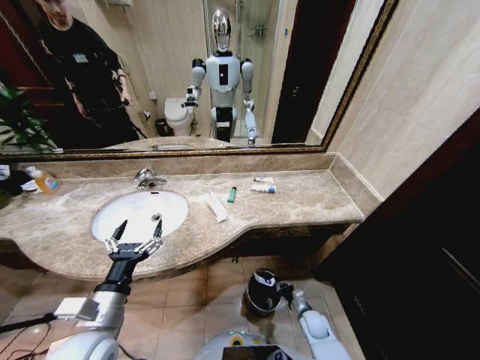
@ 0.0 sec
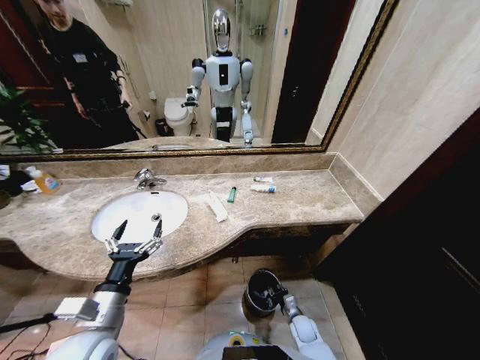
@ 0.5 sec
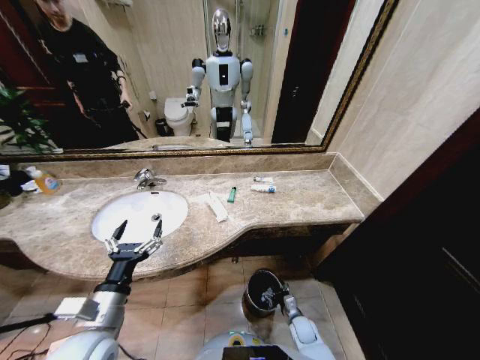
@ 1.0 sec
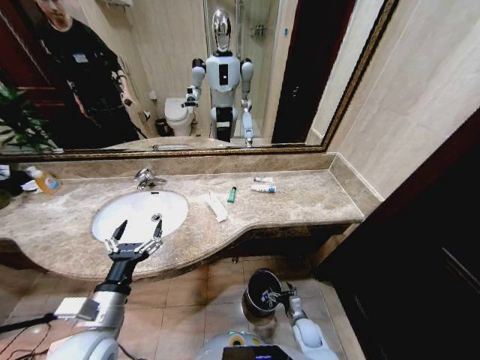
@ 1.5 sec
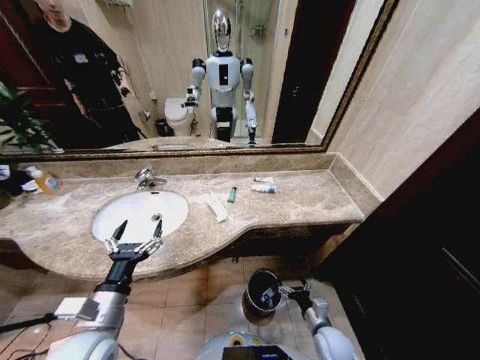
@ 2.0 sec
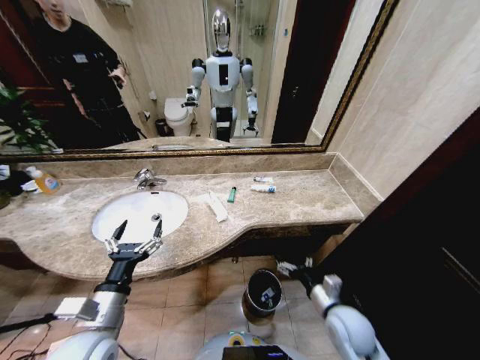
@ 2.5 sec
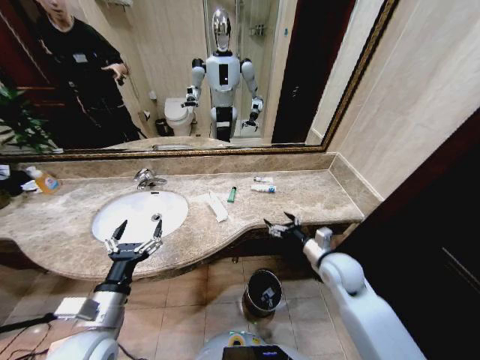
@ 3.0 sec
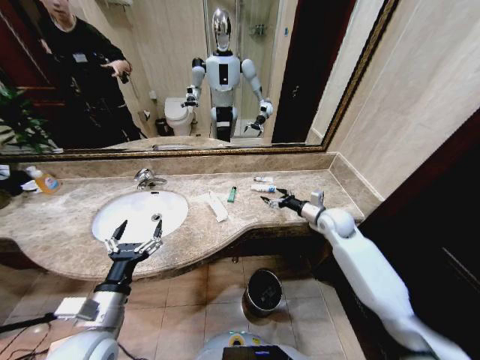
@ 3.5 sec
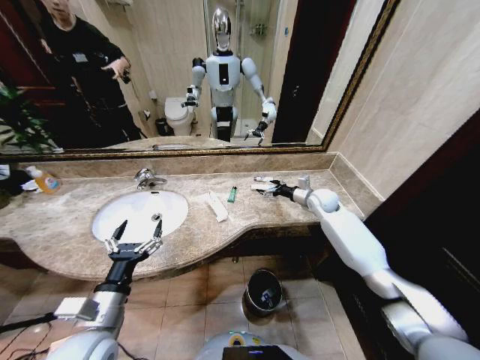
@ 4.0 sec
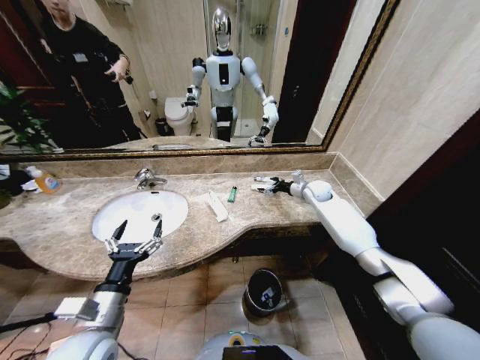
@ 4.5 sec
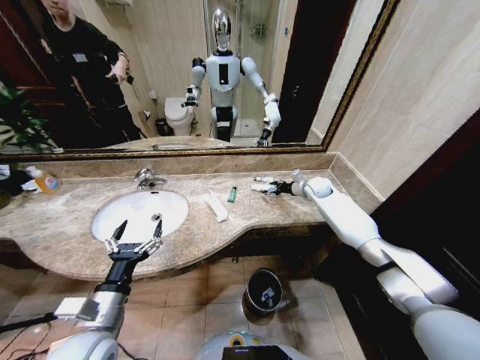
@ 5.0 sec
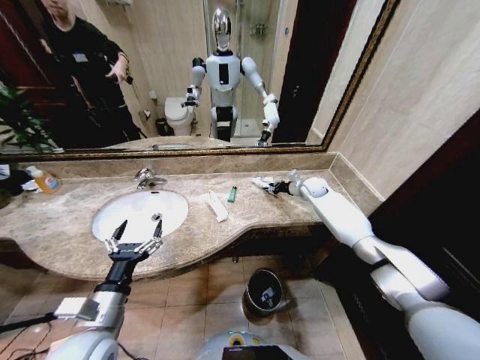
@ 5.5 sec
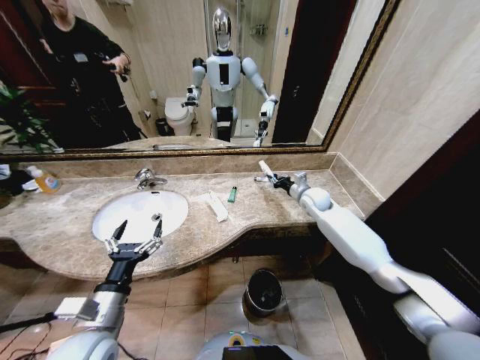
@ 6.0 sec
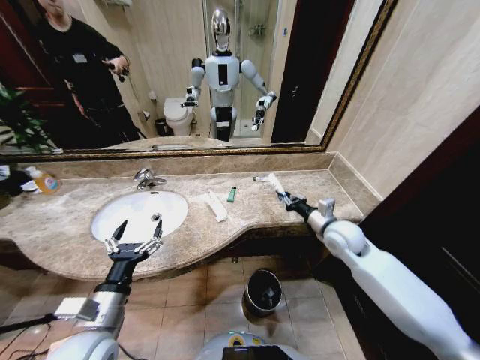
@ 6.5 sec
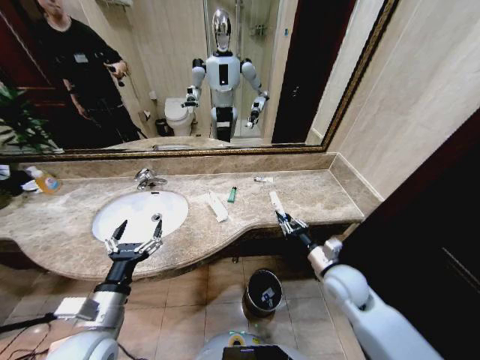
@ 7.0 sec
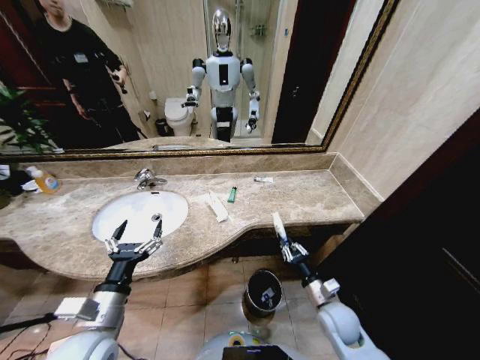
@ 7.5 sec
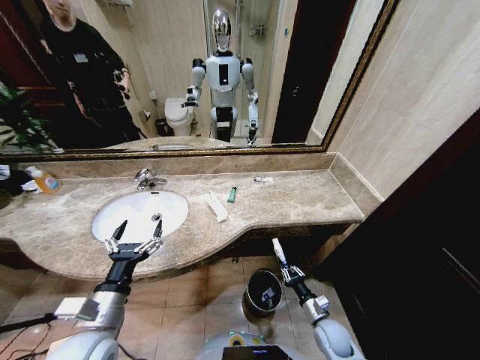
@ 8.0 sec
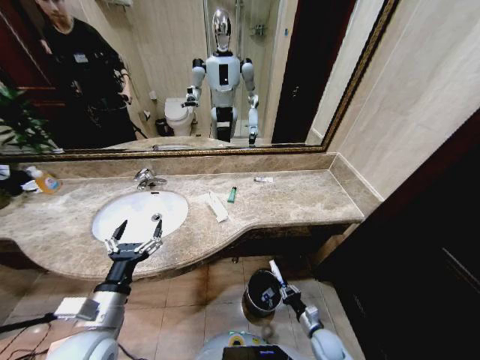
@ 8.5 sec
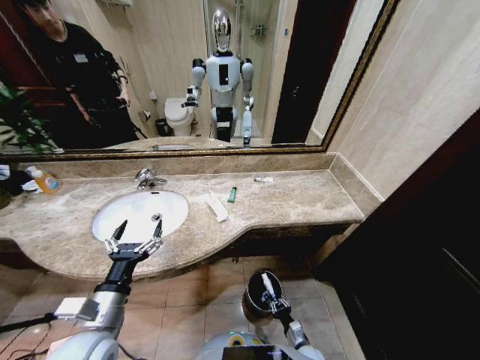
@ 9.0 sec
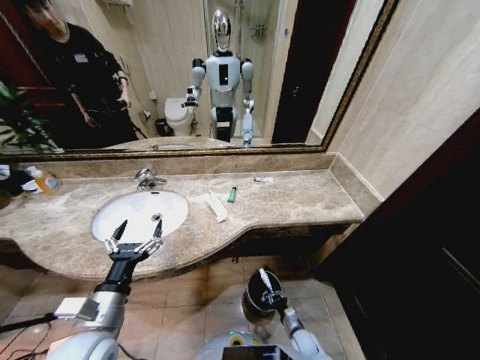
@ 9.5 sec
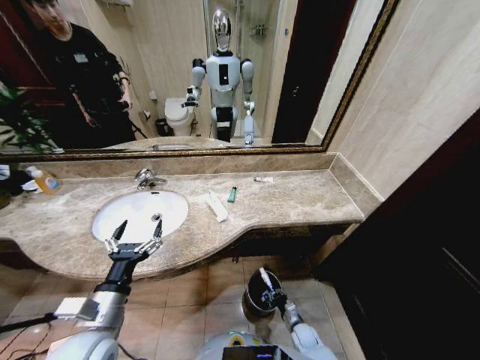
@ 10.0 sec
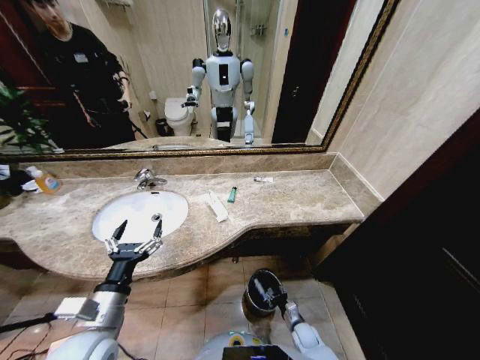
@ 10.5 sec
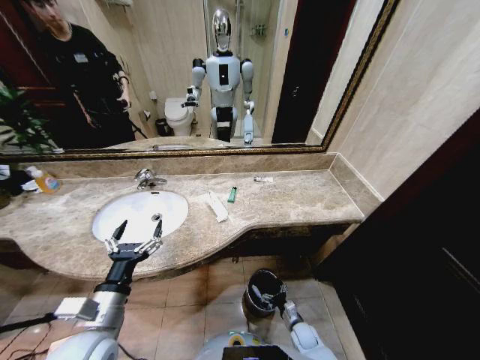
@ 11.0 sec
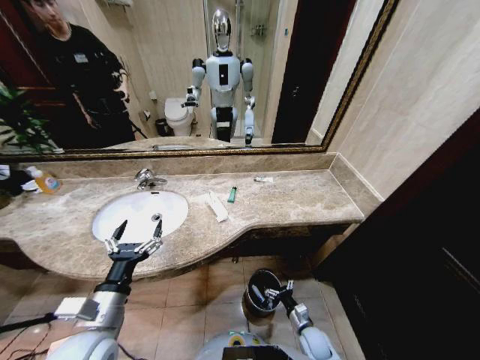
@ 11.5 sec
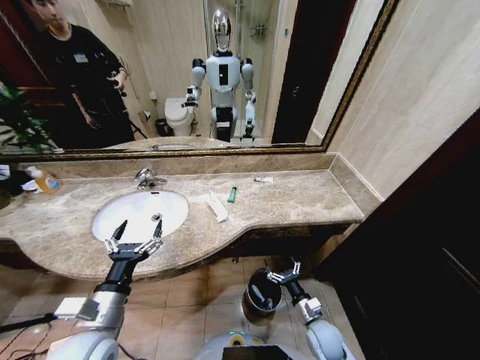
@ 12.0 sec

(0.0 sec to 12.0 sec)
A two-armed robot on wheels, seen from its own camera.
Task of the whole recording: Pick up the trash from the sink and place it in the trash bin.
0.0 sec - 2.0 sec: The right gripper is displaced upward and backward by approximately 10 cm, and opens up.
2.0 sec - 4.0 sec: The right gripper goes some 40 cm forward and upward.
4.0 sec - 6.0 sec: The right gripper closes its fingers.
6.0 sec - 8.0 sec: The right gripper shifts approximately 40 cm backward and downward.
8.0 sec - 10.0 sec: The right gripper goes some 15 cm downward.
10.0 sec - 12.0 sec: The right gripper heads upward, covering about 15 cm, and opens.

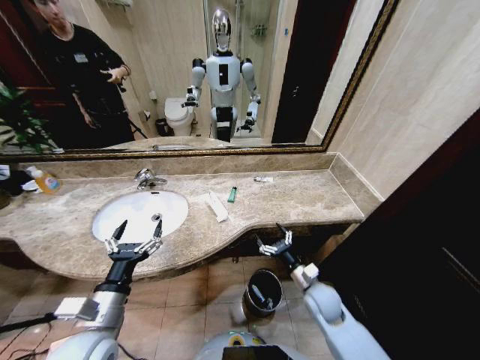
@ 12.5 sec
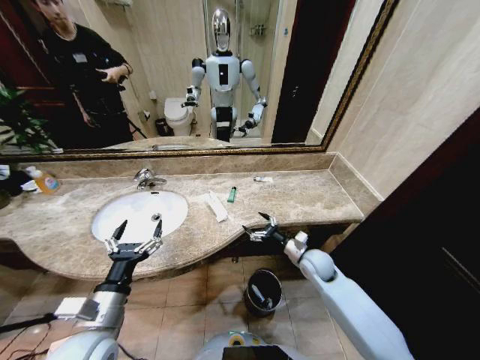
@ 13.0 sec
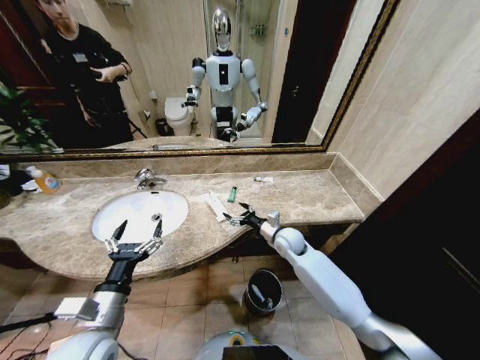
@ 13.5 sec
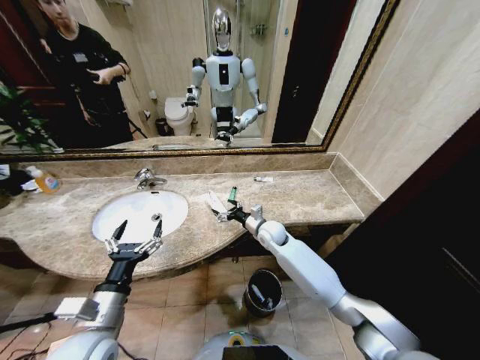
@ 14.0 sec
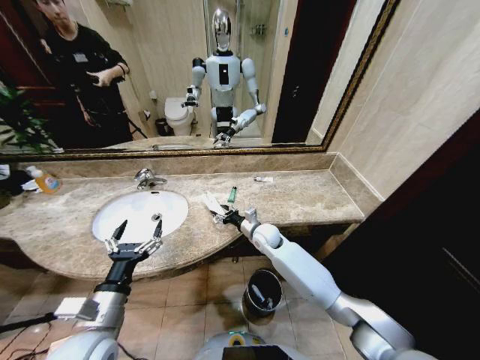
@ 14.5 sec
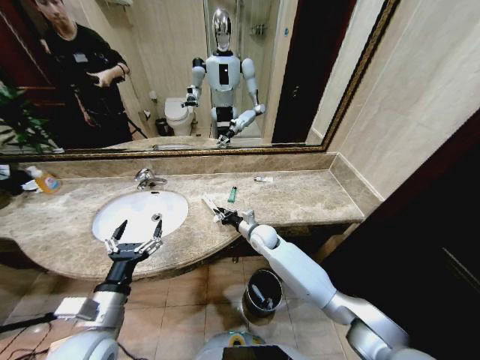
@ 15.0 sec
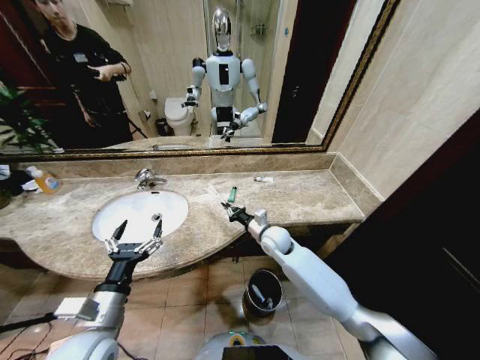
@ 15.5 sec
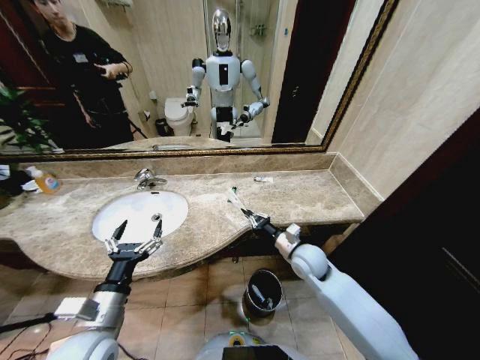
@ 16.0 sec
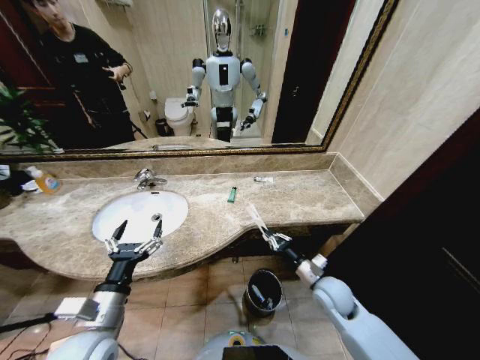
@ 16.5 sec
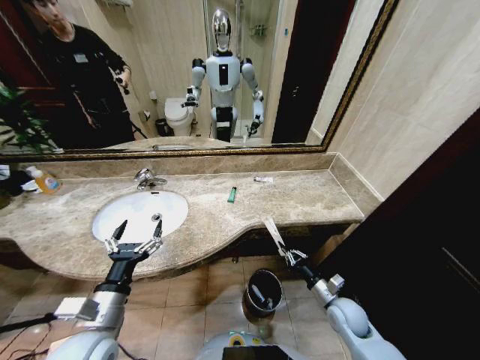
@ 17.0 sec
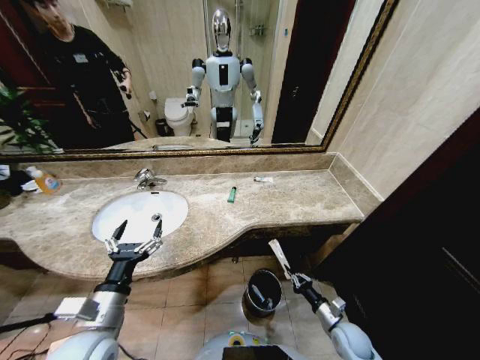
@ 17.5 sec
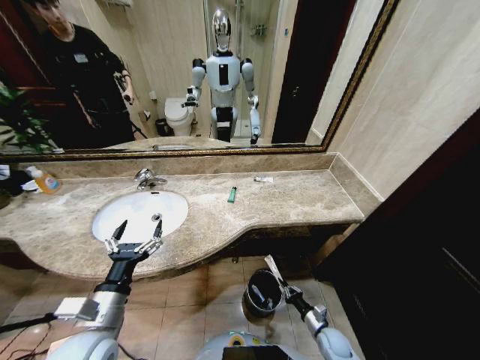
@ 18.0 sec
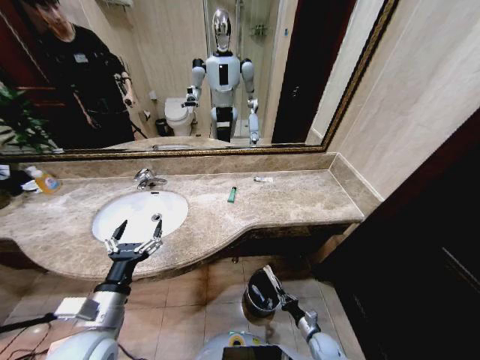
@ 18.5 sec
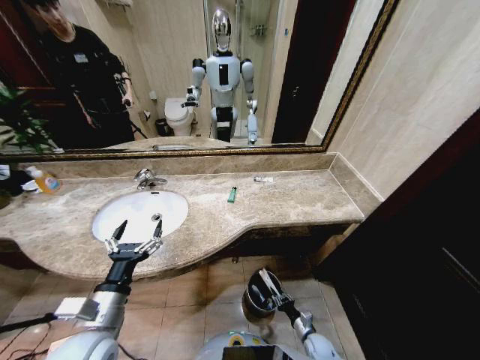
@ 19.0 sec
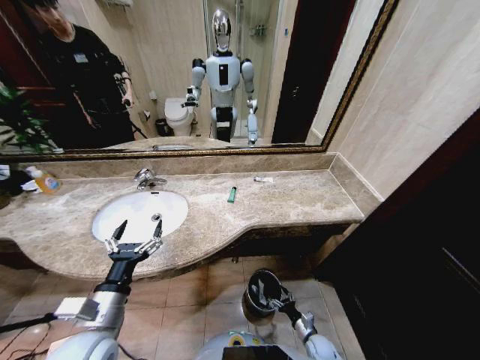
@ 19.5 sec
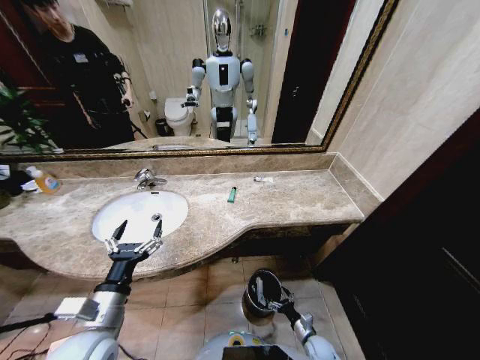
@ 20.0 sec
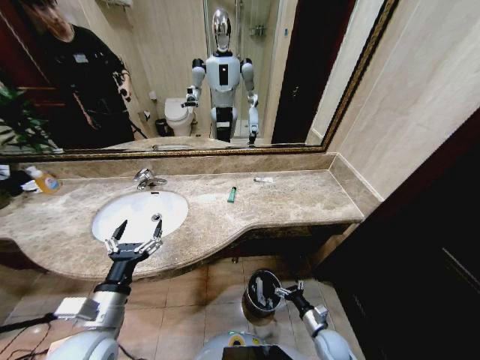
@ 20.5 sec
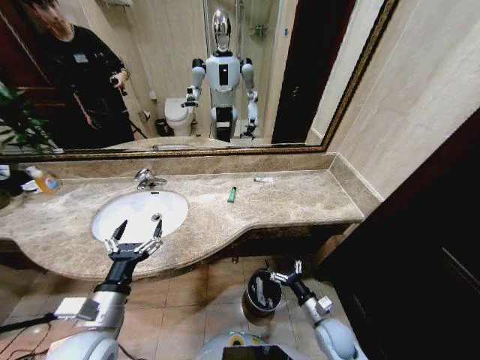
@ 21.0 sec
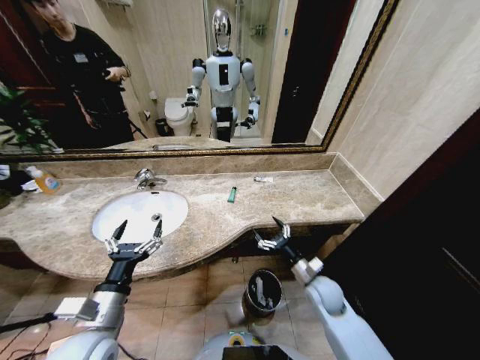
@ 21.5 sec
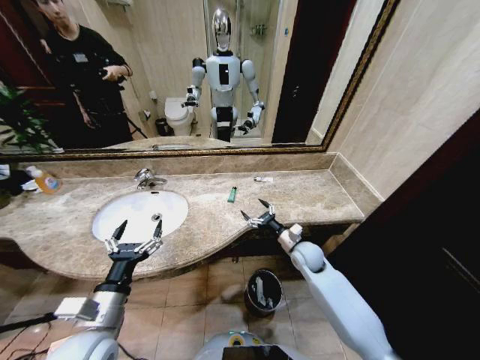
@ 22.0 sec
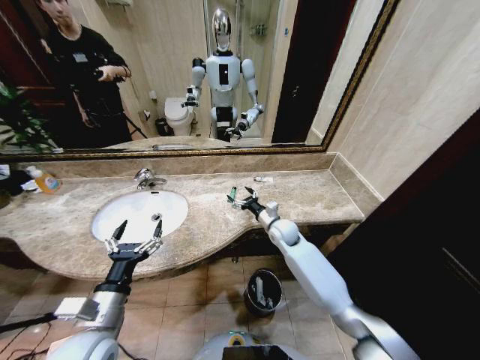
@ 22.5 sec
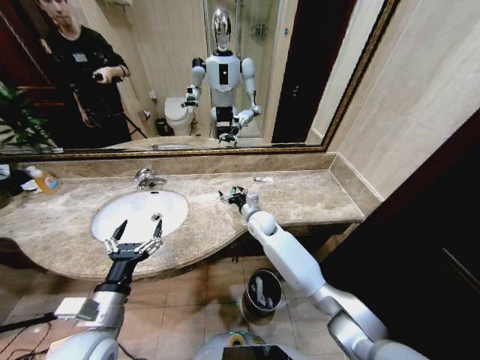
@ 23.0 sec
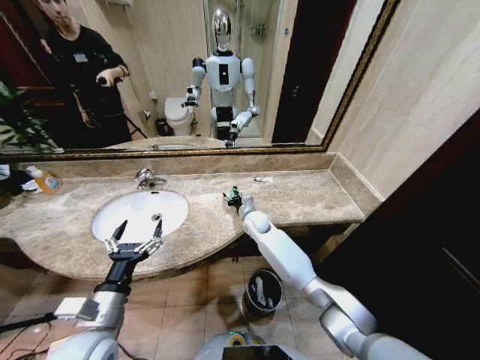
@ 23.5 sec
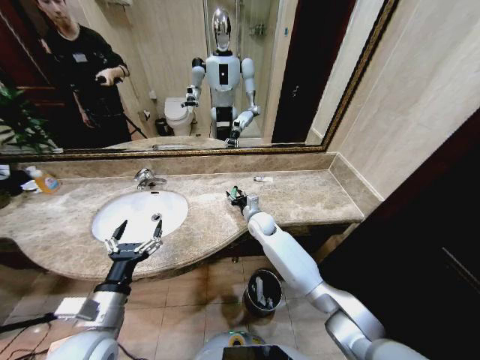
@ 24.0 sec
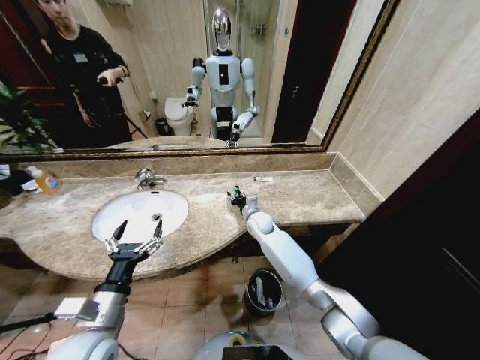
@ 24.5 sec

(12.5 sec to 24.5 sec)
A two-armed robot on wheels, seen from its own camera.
Task of the whole recording: Pick up the trash from the sink and place it in the trash bin.
12.5 sec - 14.5 sec: The right gripper heads forward and to the left, covering some 25 cm.
14.5 sec - 16.5 sec: The right gripper shifts about 25 cm backward and to the right, and closes its fingers.
16.5 sec - 18.5 sec: The right gripper goes about 30 cm downward.
18.5 sec - 20.5 sec: The right gripper heads upward, covering some 10 cm, and opens up.
20.5 sec - 22.5 sec: The right gripper shifts approximately 40 cm forward, upward and to the left.
22.5 sec - 24.5 sec: The right gripper is displaced to the left and forward by some 10 cm, and closes.

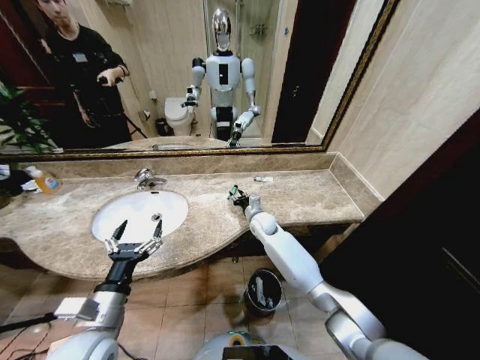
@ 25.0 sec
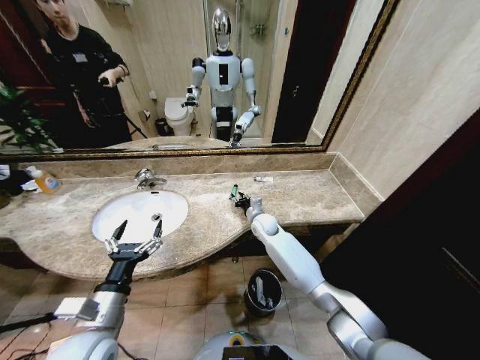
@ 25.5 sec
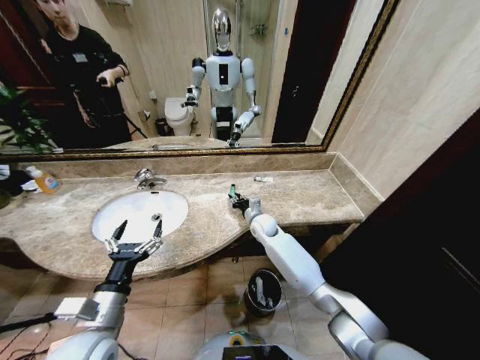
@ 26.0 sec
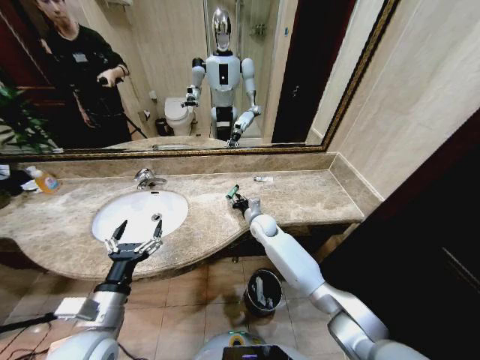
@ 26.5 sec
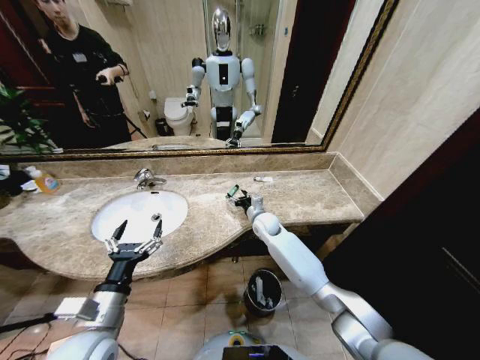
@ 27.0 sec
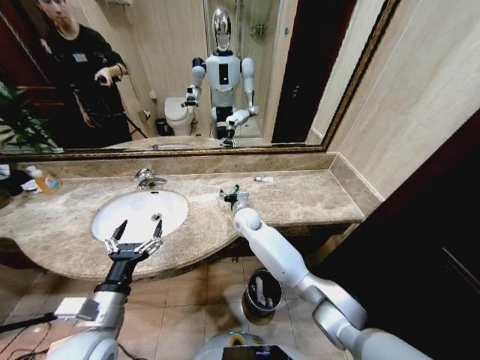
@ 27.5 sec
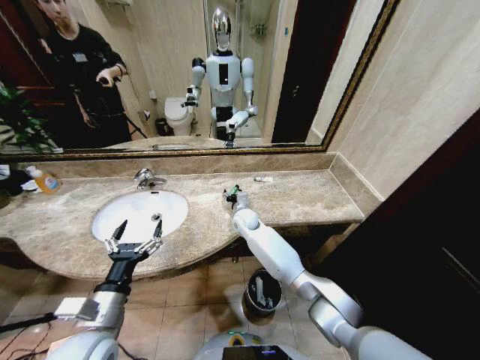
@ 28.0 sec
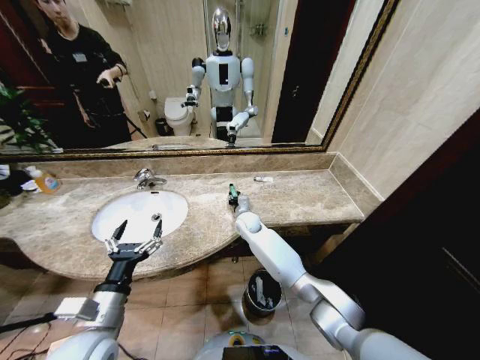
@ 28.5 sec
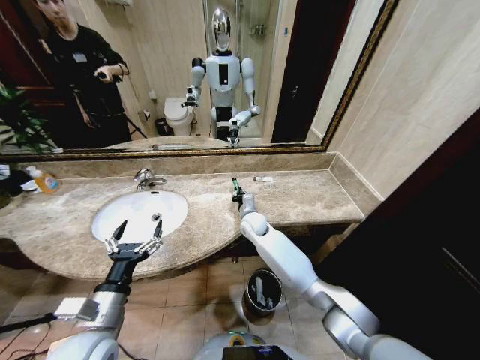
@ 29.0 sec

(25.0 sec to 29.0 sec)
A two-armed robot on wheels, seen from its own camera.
Task of the whole recording: Pick up the trash from the sink and place it in the trash bin.
25.0 sec - 27.0 sec: Both grippers stay put.
27.0 sec - 29.0 sec: The right gripper closes its fingers.
